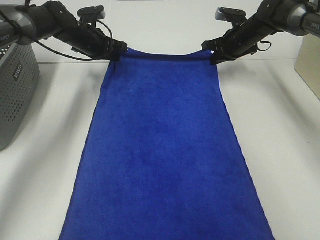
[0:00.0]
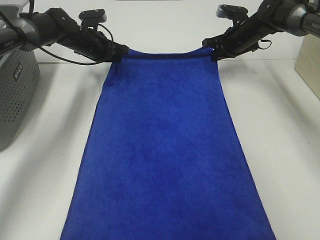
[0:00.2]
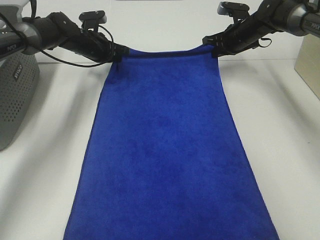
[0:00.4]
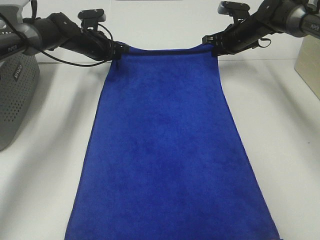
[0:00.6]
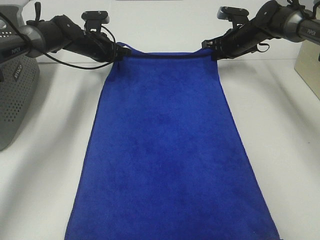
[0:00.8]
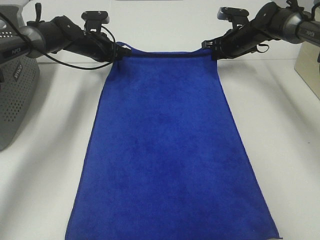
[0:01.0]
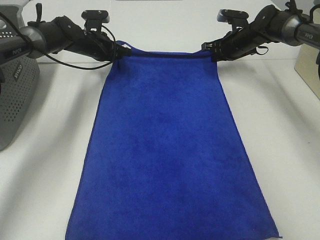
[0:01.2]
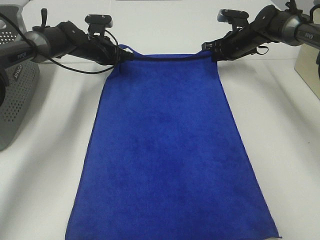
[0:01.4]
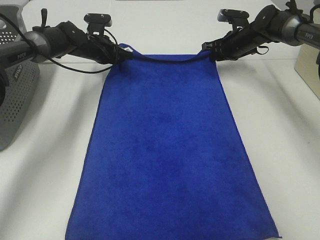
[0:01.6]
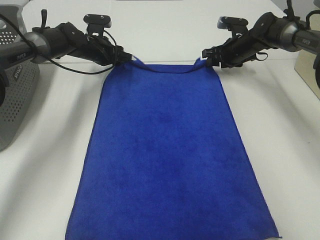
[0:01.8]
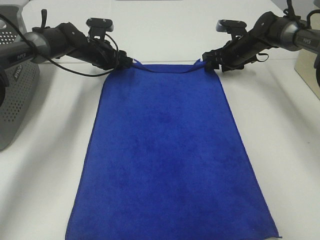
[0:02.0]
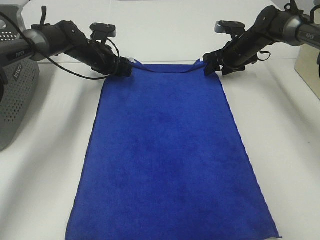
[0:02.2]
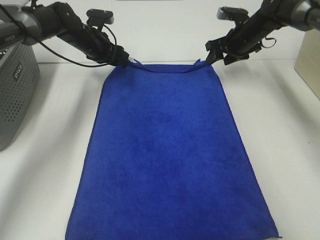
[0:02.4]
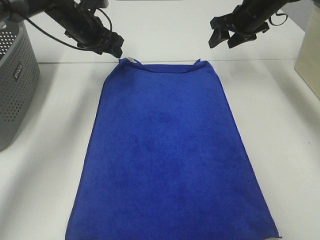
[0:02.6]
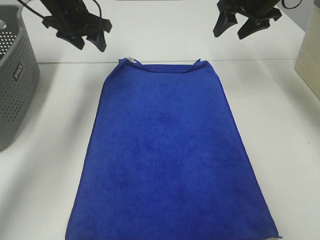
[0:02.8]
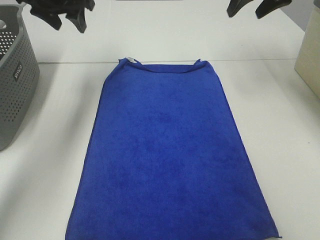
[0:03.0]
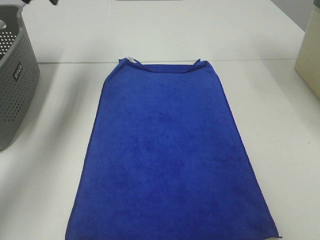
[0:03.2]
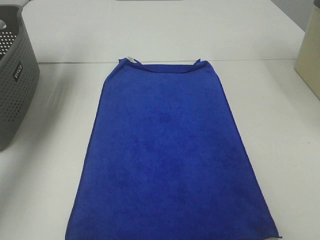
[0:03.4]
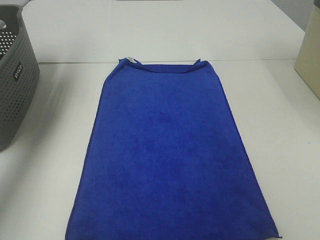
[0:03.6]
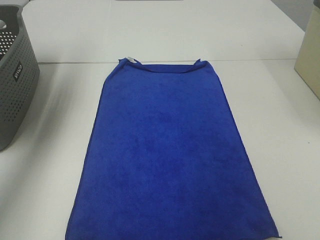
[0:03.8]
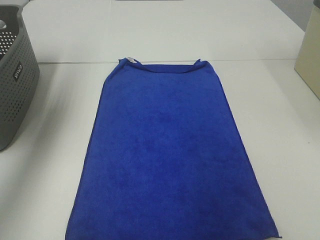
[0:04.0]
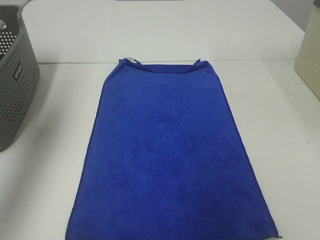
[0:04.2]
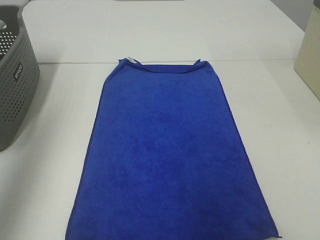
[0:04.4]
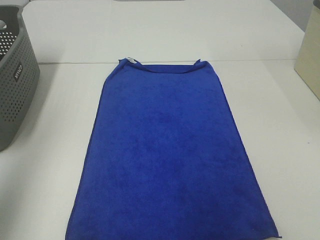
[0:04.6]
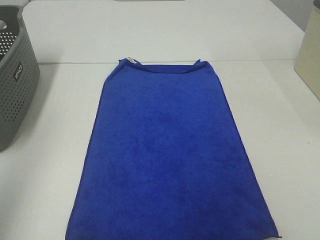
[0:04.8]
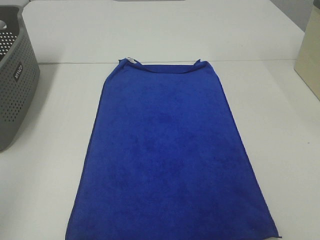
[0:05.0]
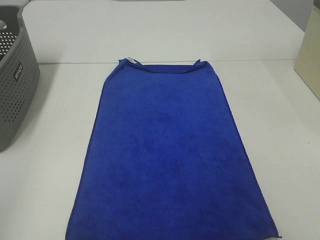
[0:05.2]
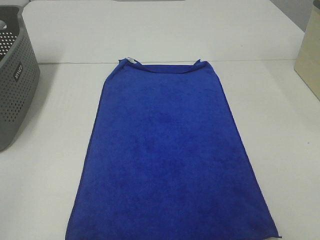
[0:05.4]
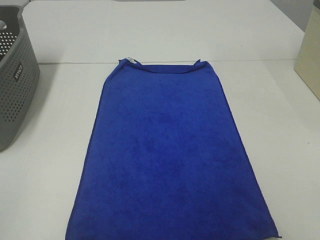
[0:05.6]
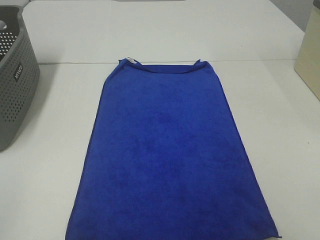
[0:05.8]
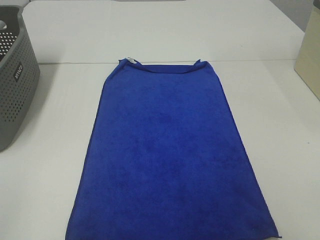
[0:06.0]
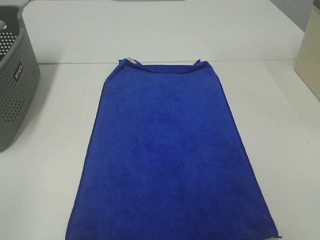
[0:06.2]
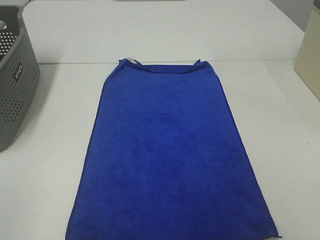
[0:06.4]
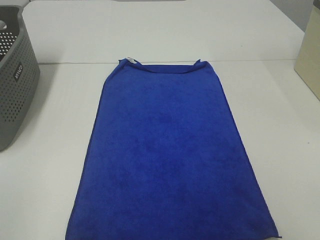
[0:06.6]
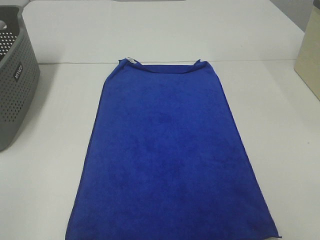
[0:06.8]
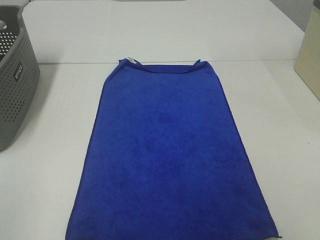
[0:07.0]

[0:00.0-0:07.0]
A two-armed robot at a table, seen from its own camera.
Task of the whole recording: Remove the towel and place it.
0:00.0 to 0:01.4: The grippers move only a little.
0:01.4 to 0:02.8: Both grippers travel together upward and backward, about 15 cm. The right gripper opens. Meanwhile the left gripper opens up.
0:02.8 to 0:04.2: The right gripper is displaced backward and upward by some 35 cm, while the left gripper moves backward, upward and to the left, approximately 30 cm.
0:04.2 to 0:05.6: The left gripper shifts about 35 cm backward.

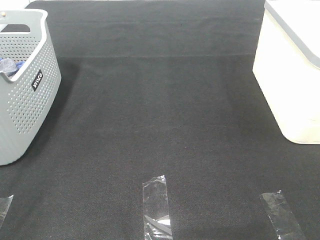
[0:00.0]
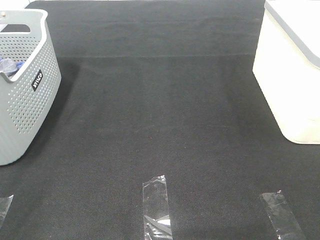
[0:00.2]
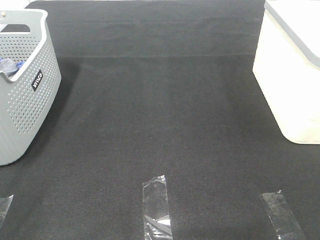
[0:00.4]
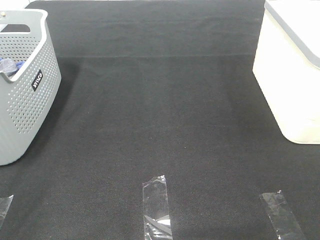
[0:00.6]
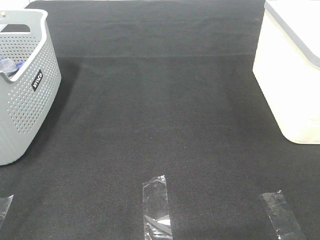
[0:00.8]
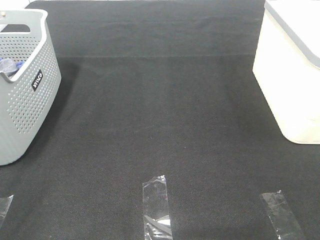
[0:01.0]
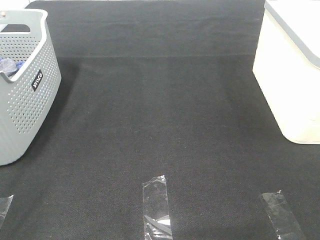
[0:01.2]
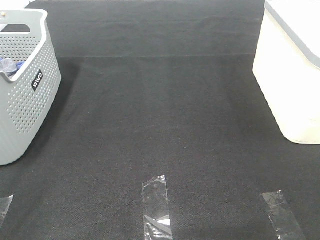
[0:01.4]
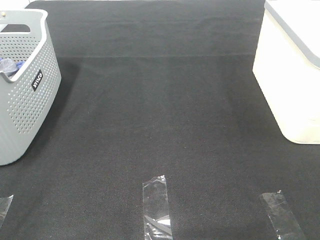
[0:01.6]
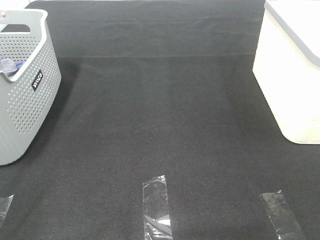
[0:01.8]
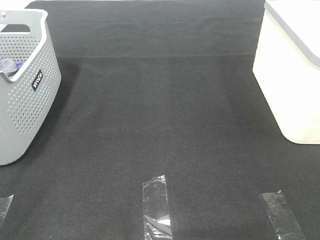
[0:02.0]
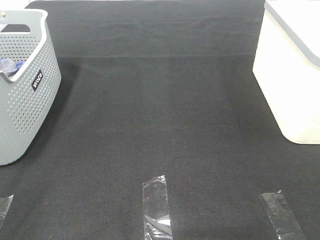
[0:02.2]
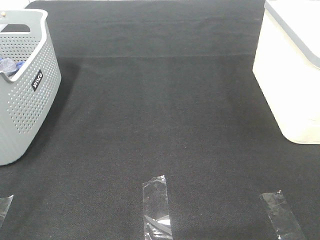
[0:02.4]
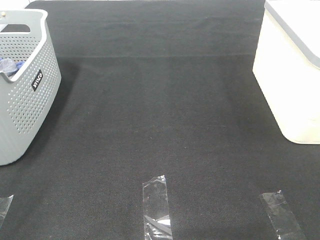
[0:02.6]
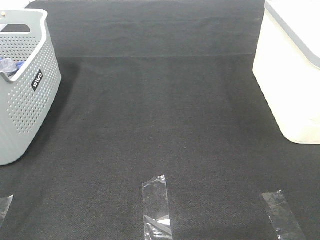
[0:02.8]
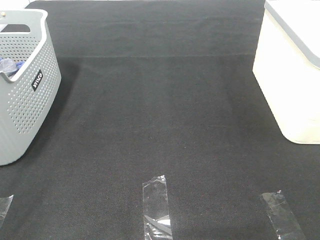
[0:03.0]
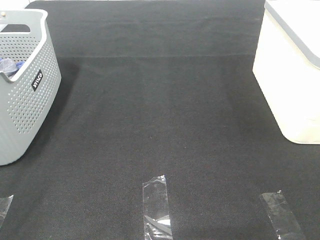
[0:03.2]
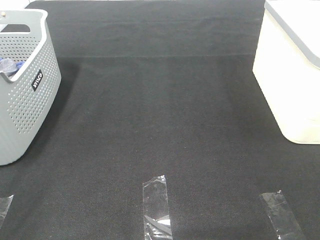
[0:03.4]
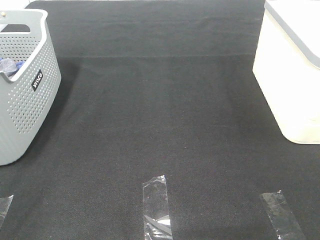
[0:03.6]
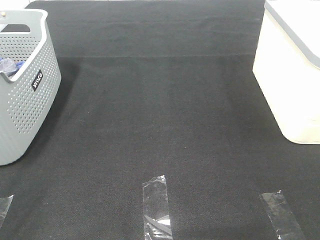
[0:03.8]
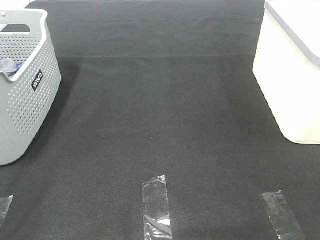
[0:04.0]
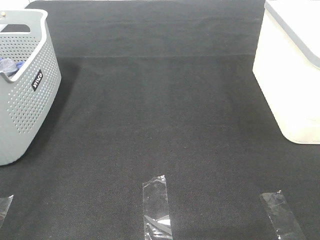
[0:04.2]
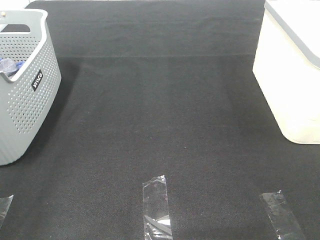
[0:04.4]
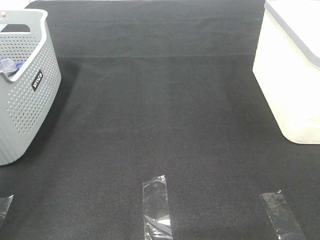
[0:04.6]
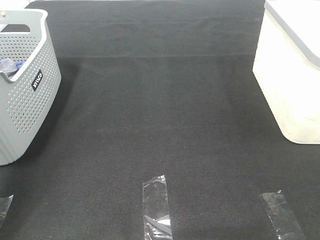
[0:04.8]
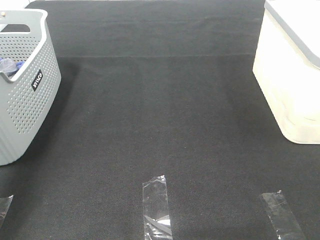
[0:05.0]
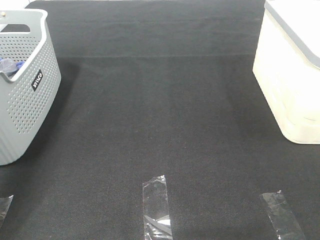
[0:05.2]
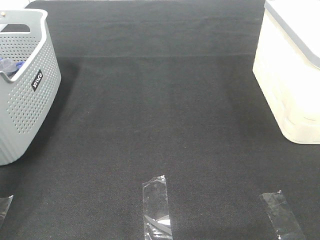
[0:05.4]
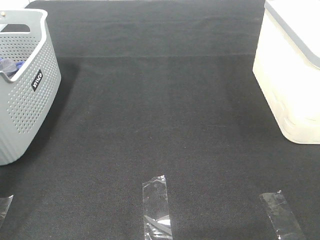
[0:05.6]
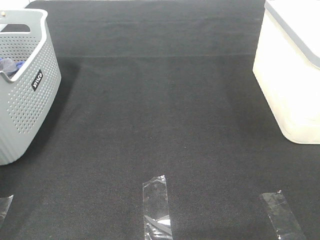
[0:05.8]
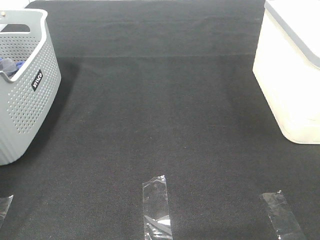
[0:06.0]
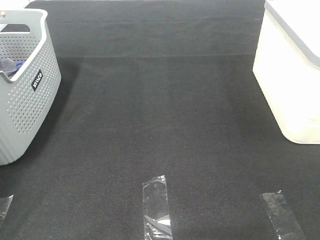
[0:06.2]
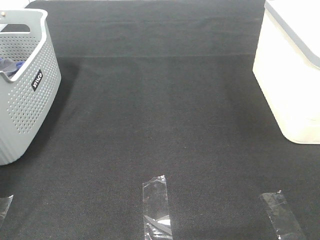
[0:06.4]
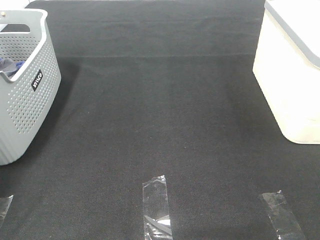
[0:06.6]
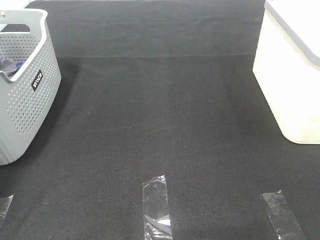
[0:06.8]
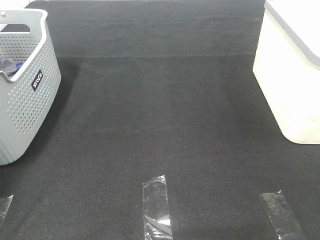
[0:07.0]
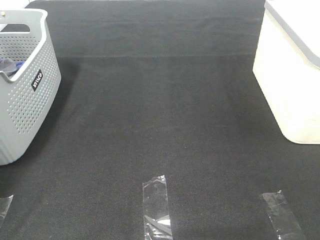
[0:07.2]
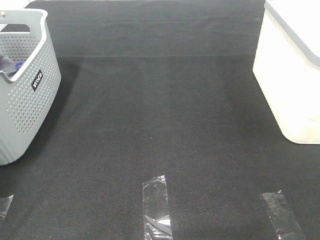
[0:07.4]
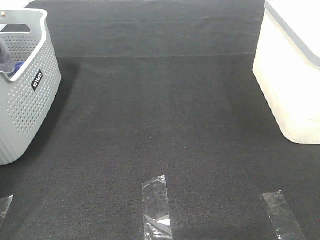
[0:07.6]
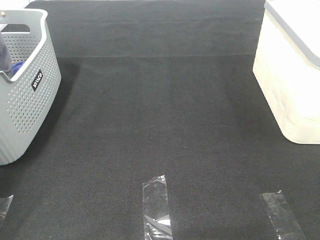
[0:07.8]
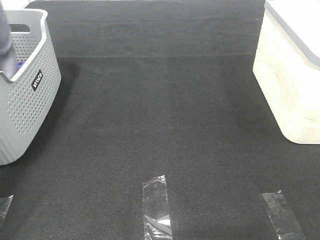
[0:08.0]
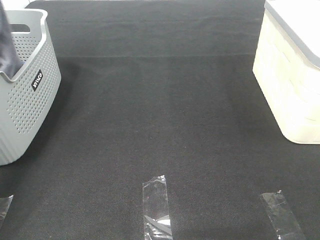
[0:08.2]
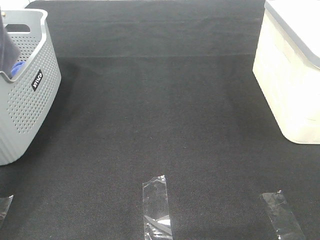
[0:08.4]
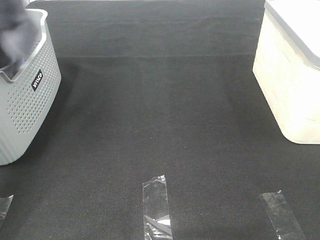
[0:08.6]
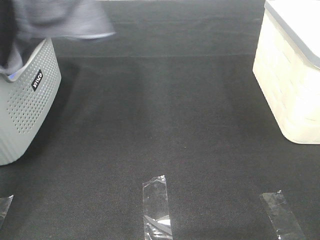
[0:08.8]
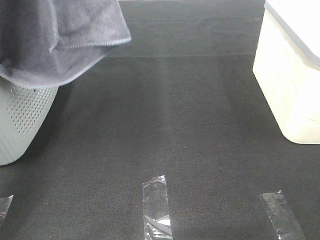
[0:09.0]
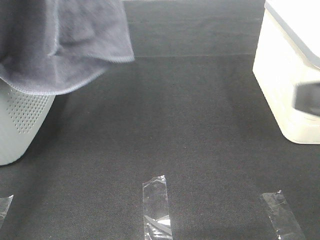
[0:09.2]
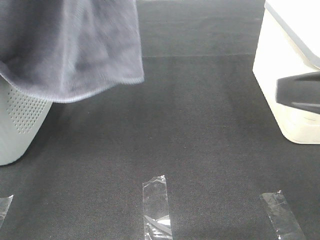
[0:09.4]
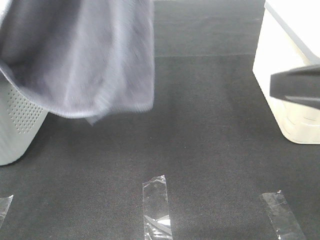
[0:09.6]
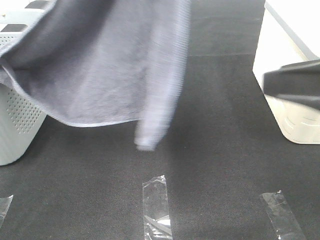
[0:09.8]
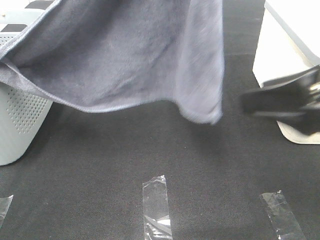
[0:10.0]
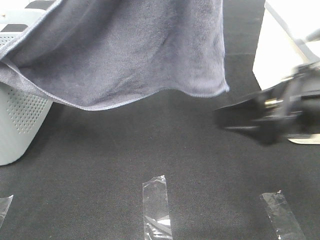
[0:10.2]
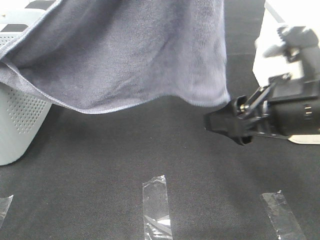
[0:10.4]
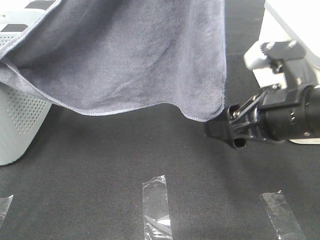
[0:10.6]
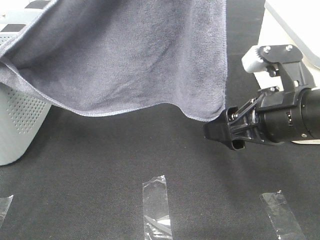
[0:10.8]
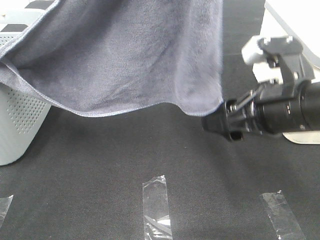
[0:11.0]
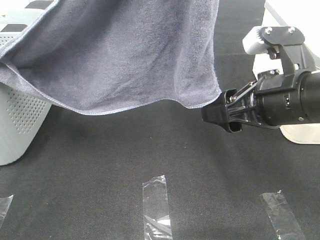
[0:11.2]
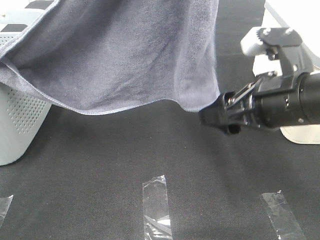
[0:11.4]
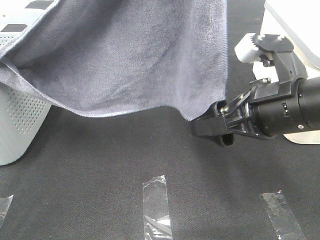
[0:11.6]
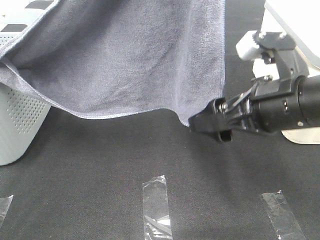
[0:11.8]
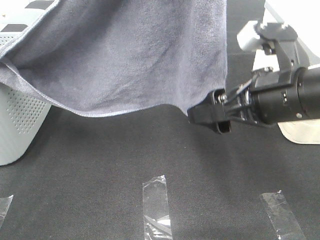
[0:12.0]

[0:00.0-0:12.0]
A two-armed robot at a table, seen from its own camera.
Task of the whole recording: Remove the towel and place it.
0:00.0 to 0:03.0: The two grippers keep their place.
0:04.4 to 0:06.0: The left gripper moves forward, roughly 35 cm.
0:07.6 to 0:09.0: The left gripper shifts some 30 cm upward, to the right and backward. The right gripper travels forward by approximately 5 cm.
0:09.0 to 0:10.4: The right gripper moves forward, downward and to the left, roughly 15 cm. Meanwhile the left gripper moves to the right and downward, approximately 15 cm.
0:10.4 to 0:12.0: The grippers stay close to where they were, moving slightly.

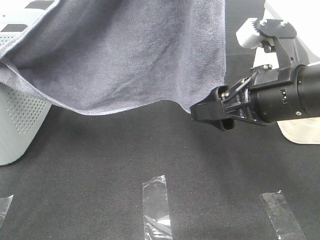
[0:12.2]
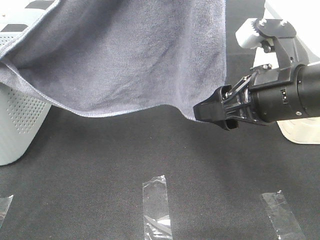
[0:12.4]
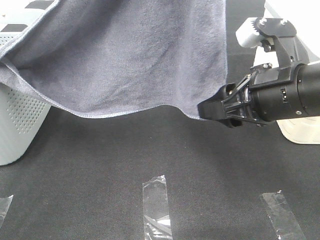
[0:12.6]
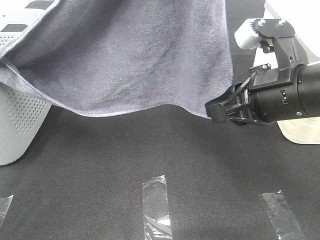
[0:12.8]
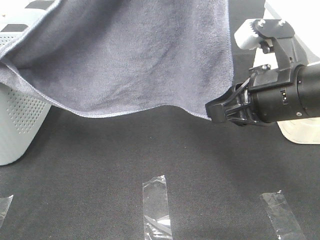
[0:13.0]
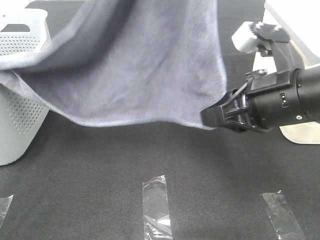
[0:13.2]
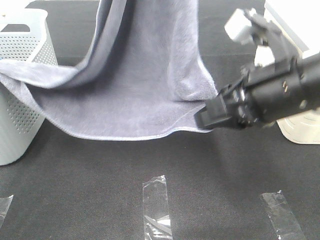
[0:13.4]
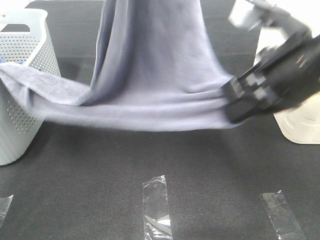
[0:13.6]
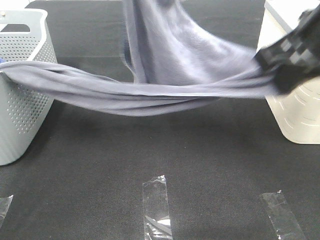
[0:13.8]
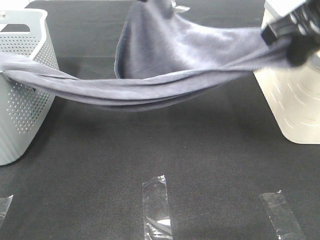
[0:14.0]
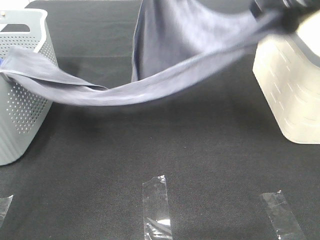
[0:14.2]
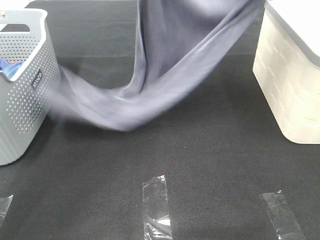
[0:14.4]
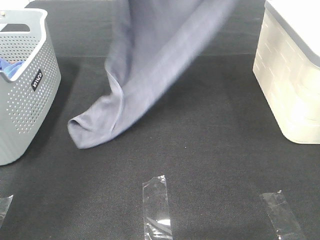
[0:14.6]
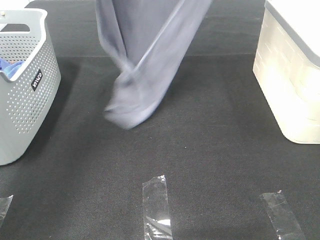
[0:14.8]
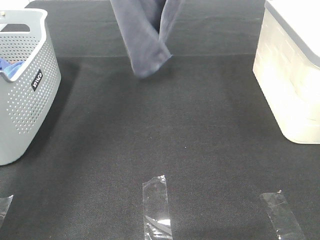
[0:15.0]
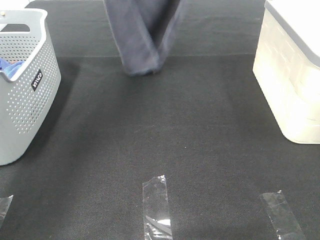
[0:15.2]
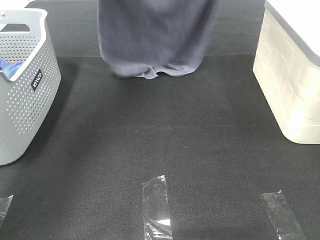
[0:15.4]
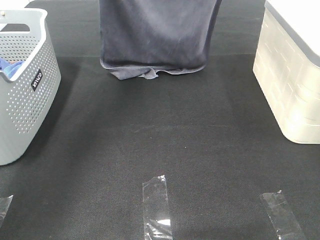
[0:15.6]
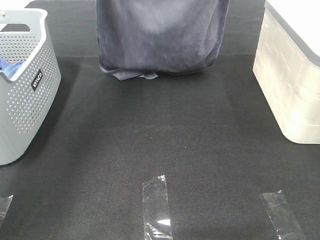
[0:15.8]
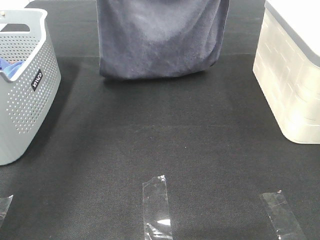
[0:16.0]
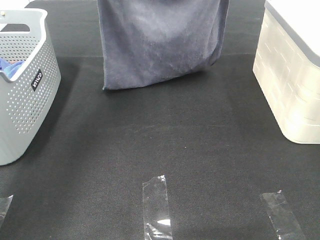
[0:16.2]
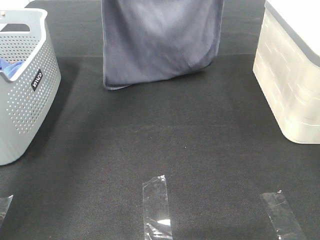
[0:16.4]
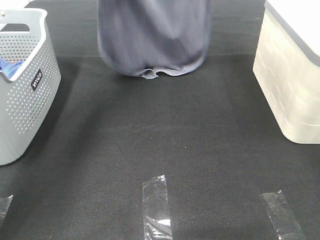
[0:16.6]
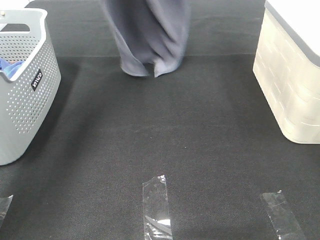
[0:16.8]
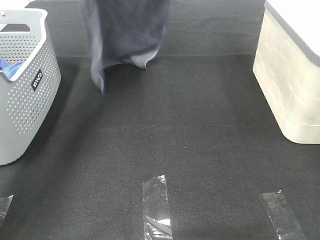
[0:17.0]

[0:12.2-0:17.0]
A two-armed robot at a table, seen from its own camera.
Task of the whole recording: Remove the towel and place it.
0:12.2 to 0:13.8: The right gripper moves upward, about 10 cm, and closes up; the left gripper shifts roughly 10 cm downward and forward.
0:13.8 to 0:15.4: The right gripper travels forward and upward by approximately 25 cm; the left gripper is displaced forward and to the left by approximately 15 cm.
